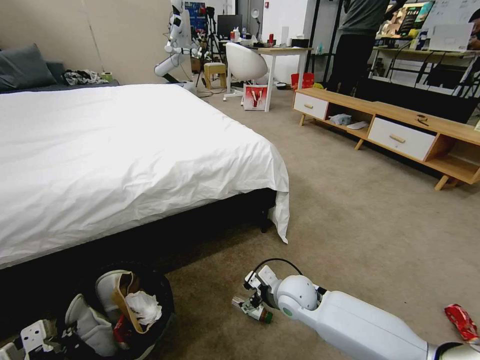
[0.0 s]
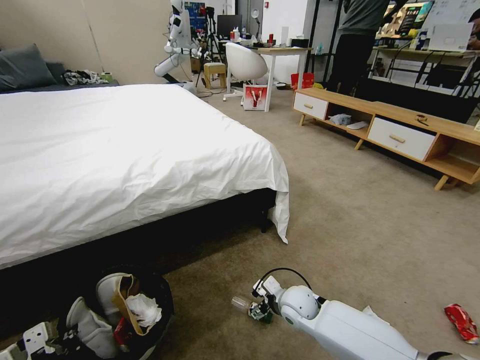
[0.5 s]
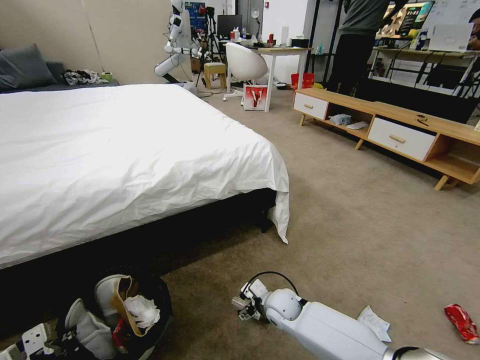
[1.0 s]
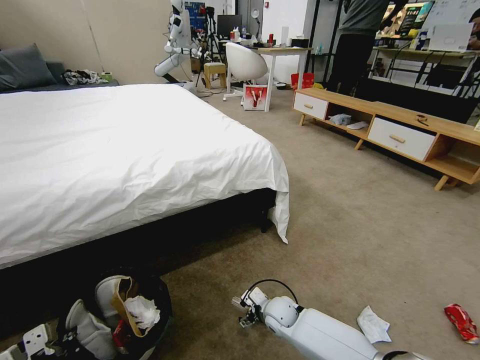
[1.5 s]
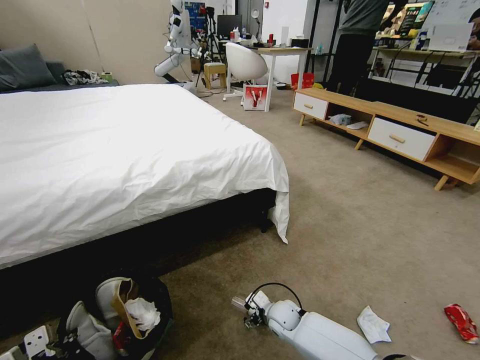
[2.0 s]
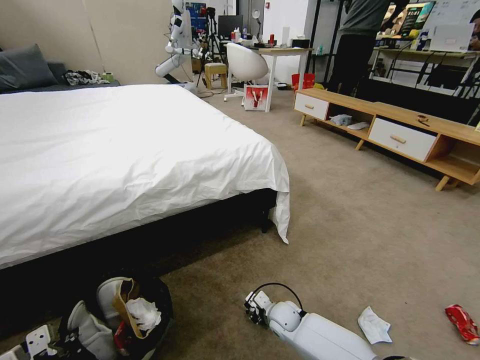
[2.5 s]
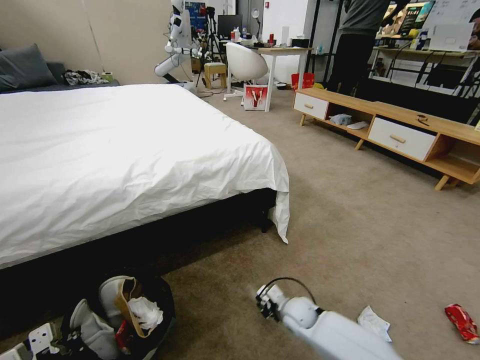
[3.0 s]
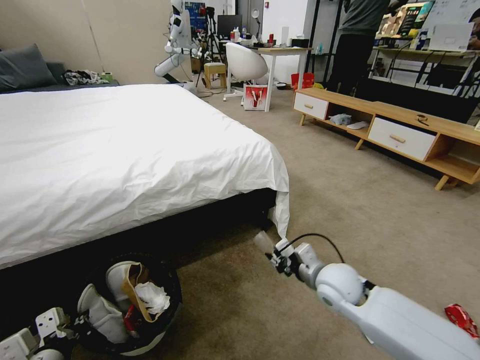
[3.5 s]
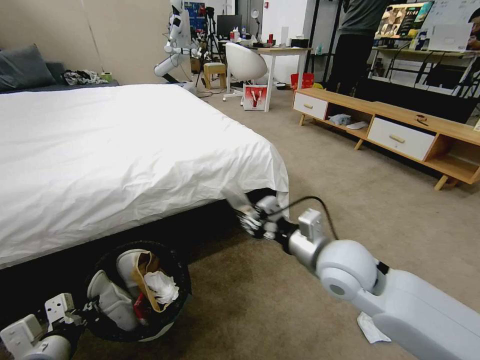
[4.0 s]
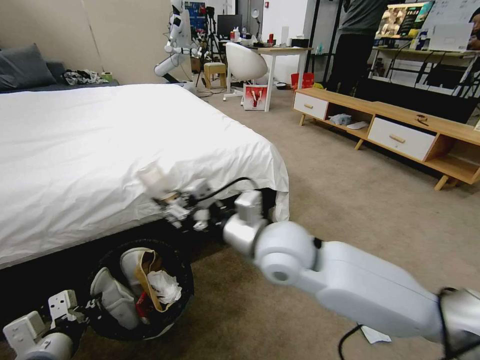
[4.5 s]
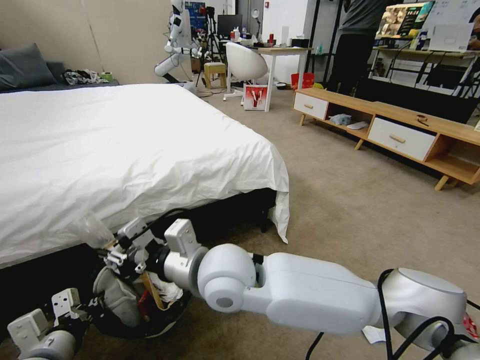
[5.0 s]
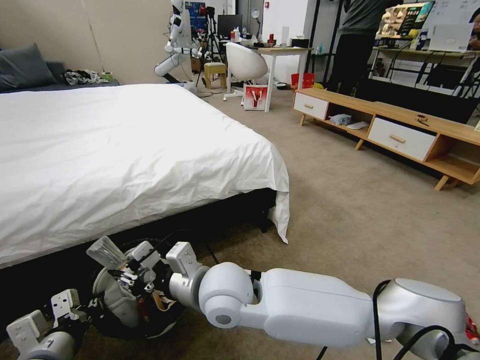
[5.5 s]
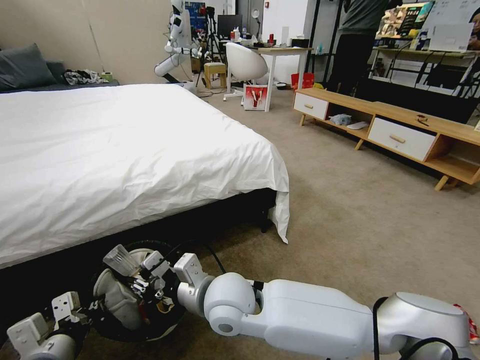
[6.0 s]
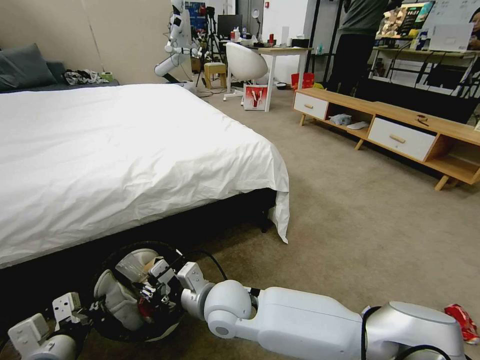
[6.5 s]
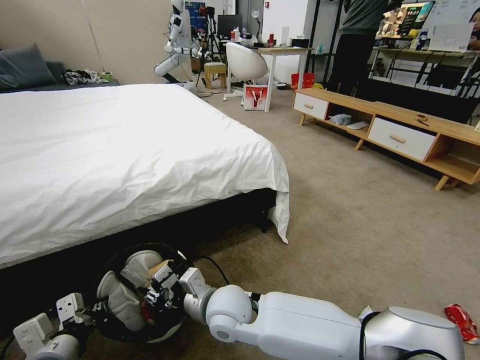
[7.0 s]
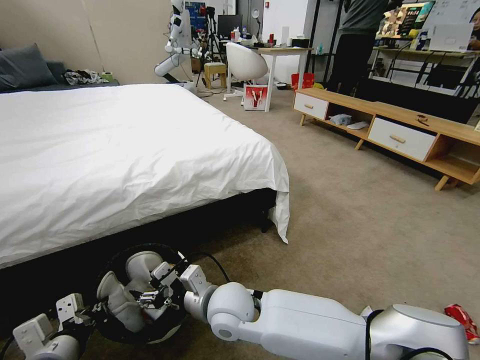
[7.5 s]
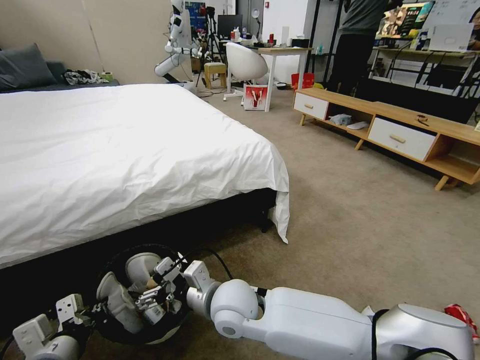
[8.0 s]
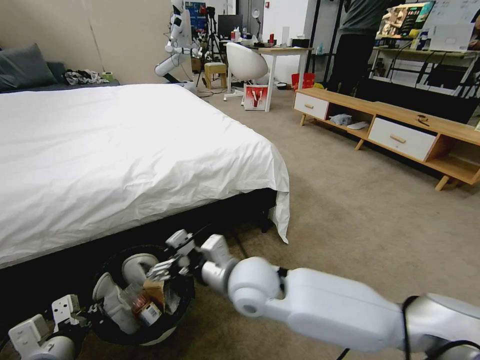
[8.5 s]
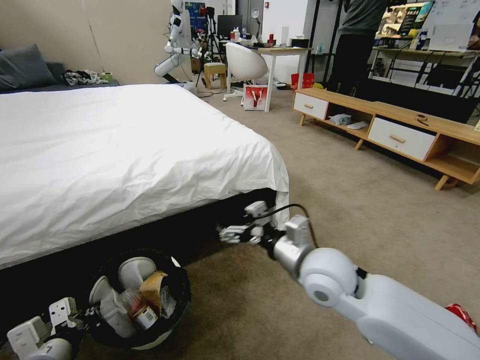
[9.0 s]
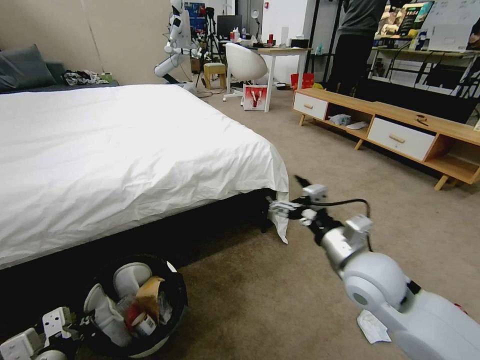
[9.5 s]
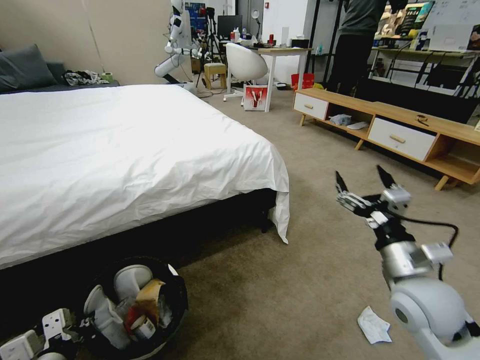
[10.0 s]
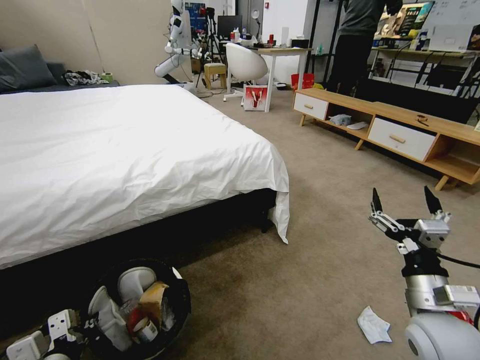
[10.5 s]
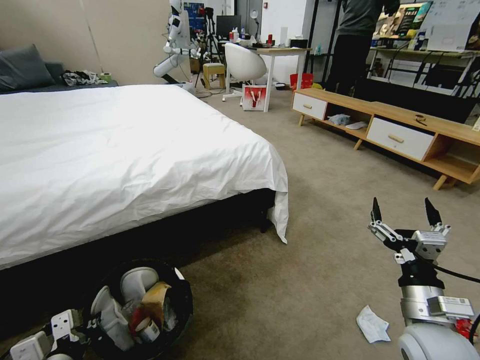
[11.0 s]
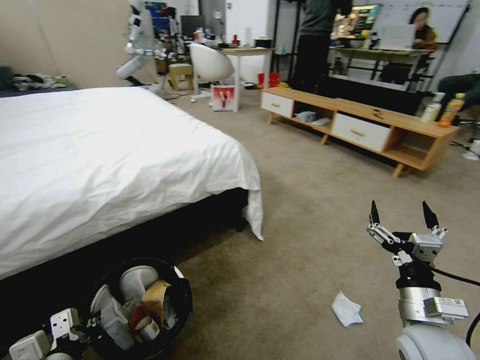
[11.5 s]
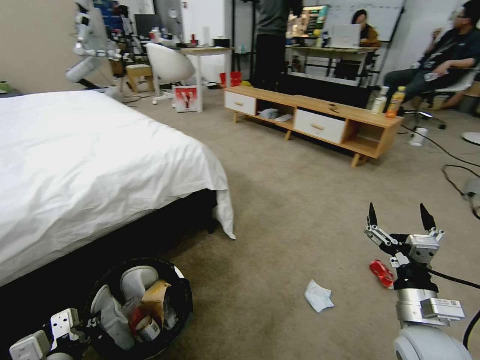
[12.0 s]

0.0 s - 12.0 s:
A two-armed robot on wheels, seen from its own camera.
Task of the whole recording: Pick up the trash bin and place the garbage on the floor into it.
0.0 s - 2.0 s: The right gripper heads downward, covering about 15 cm.
2.0 s - 4.0 s: The right gripper shifts approximately 35 cm upward, and closes, while the left gripper moves some 5 cm.
4.0 s - 6.0 s: The right gripper heads to the left, covering roughly 20 cm.
6.0 s - 8.0 s: The right gripper opens.
8.0 s - 10.0 s: The right gripper travels to the right by roughly 35 cm.
10.0 s - 12.0 s: The right gripper moves downward and backward, some 10 cm.

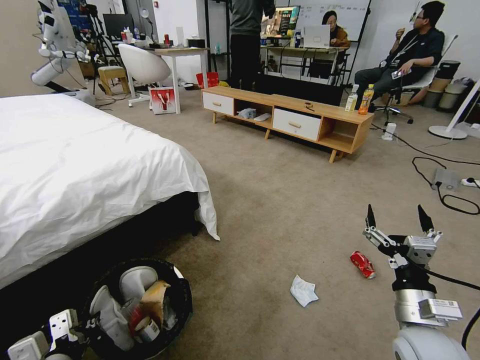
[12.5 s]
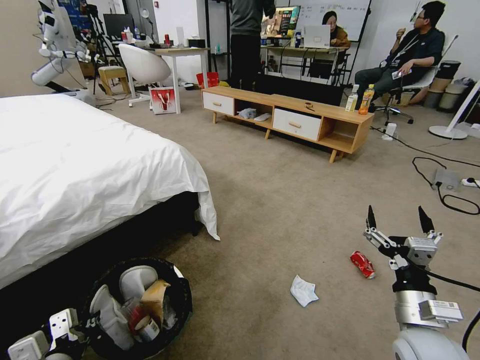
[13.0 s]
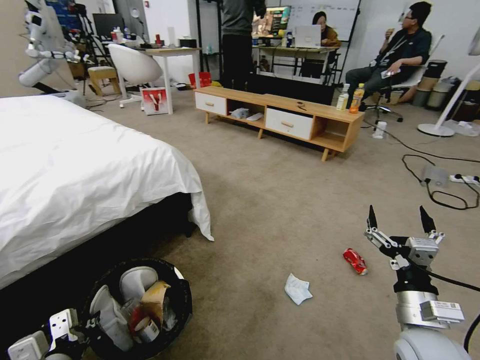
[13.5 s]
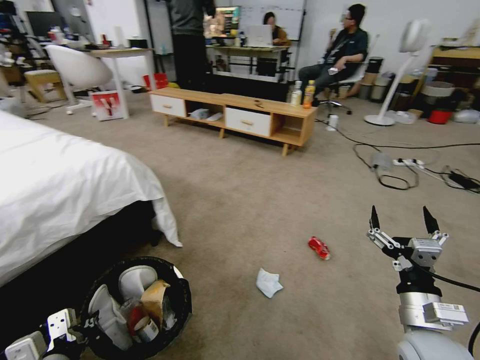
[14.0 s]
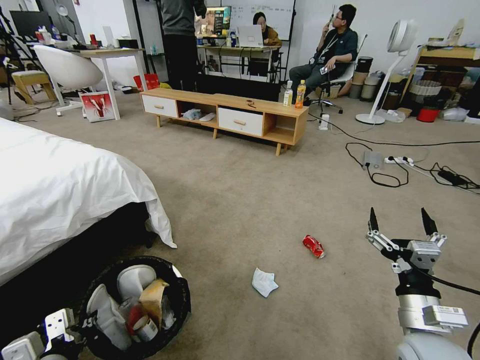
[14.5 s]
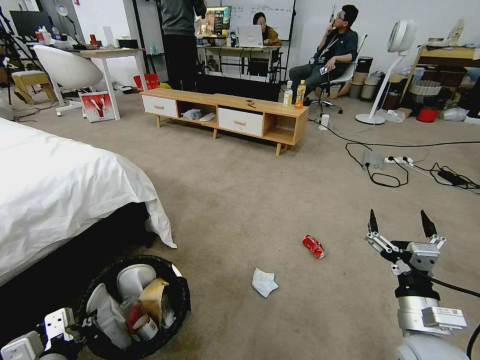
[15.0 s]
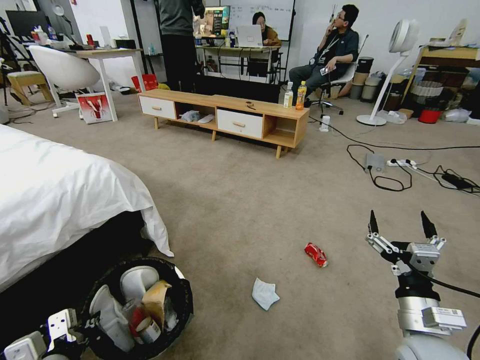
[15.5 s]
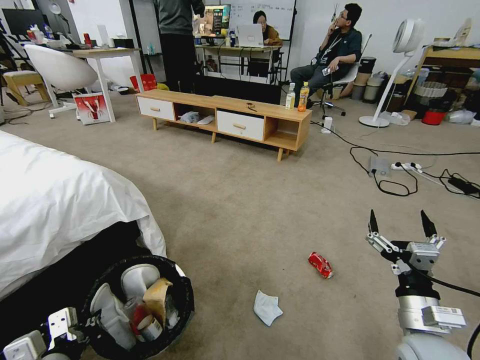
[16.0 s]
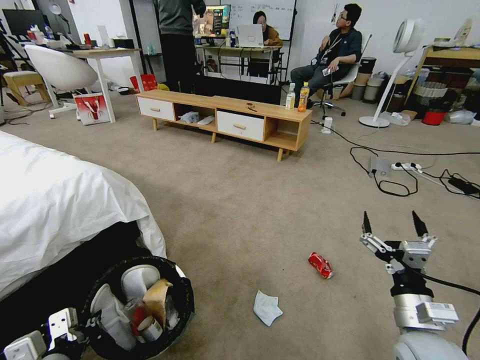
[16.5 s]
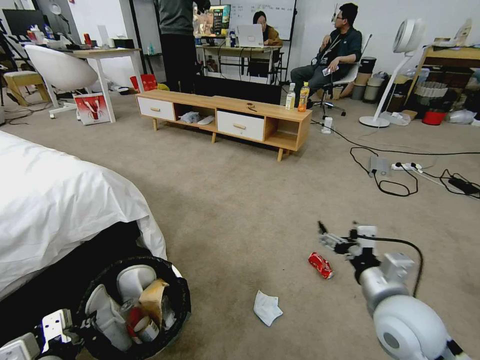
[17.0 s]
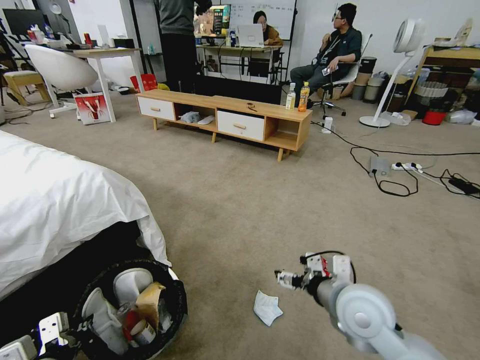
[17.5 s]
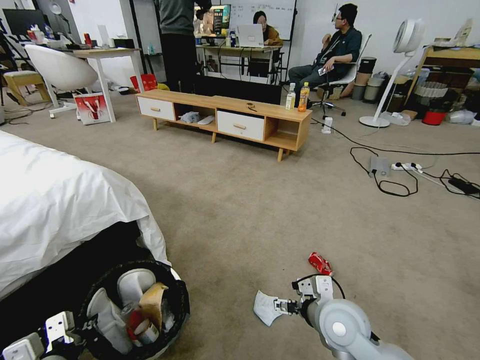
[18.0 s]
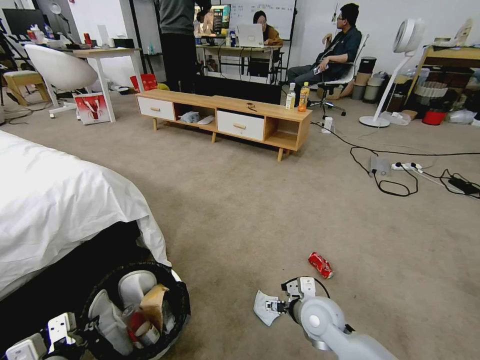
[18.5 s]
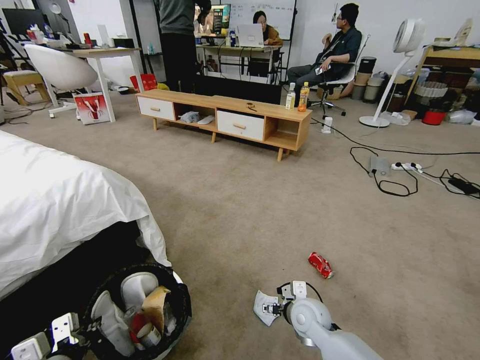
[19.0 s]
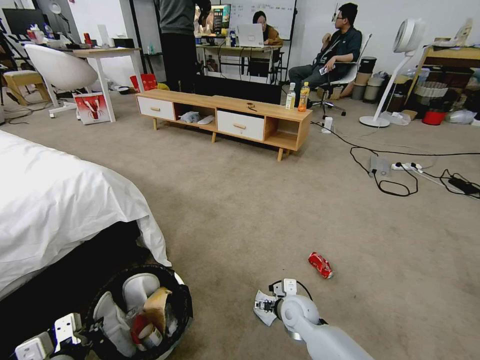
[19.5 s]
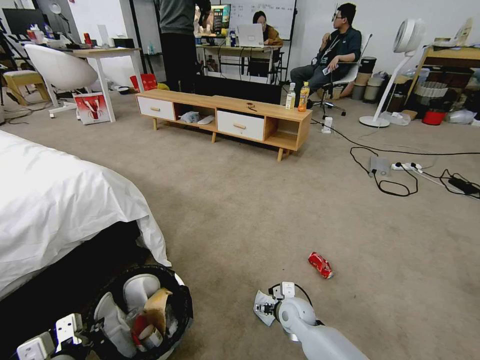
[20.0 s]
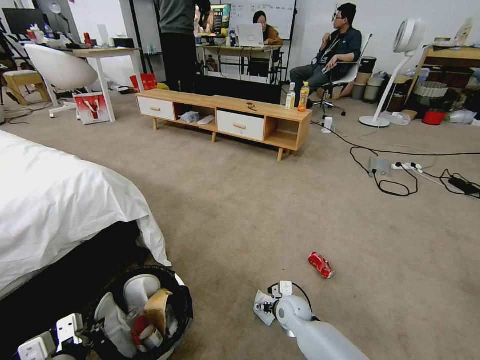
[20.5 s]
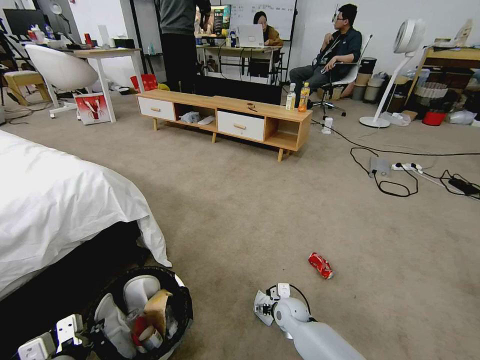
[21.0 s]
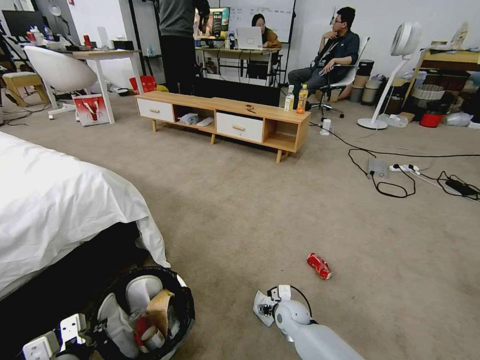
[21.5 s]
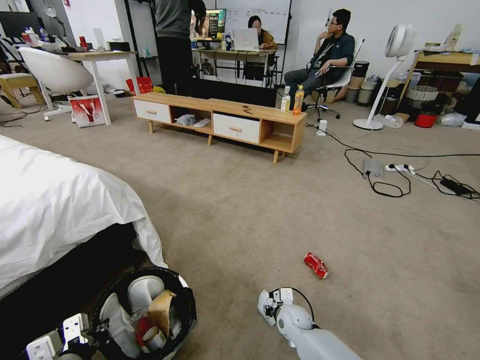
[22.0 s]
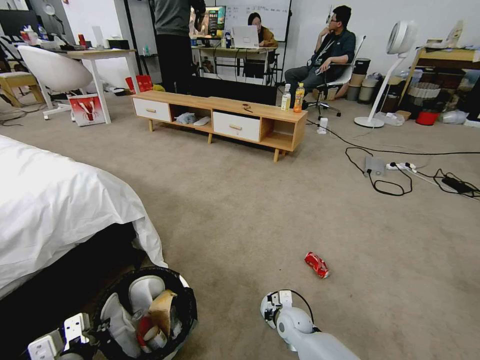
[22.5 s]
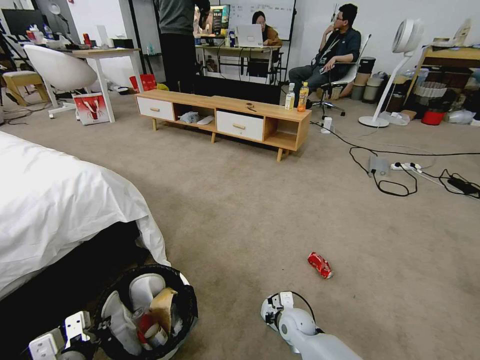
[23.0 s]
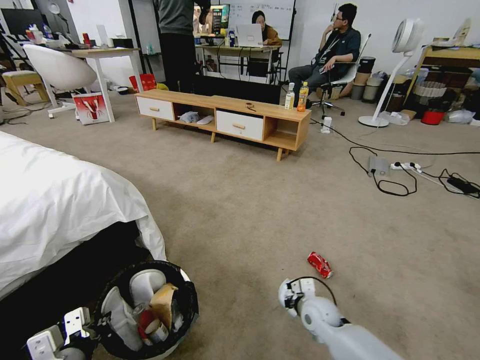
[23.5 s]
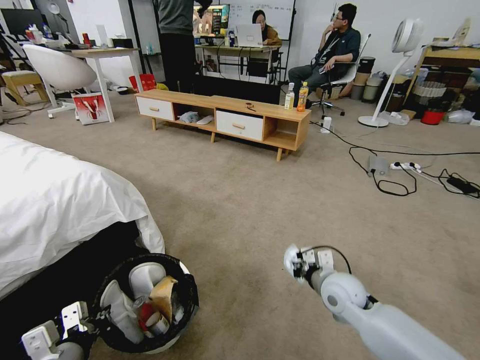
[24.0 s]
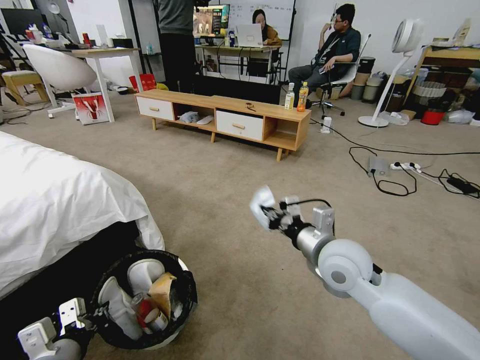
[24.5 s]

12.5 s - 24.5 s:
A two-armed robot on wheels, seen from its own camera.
Task of the whole recording: Pick up the trash bin and place the garbage on the floor into it.
16.5 s - 18.5 s: The right gripper travels to the left, forward and downward by about 20 cm.
18.5 s - 20.5 s: The right gripper heads downward and forward, covering approximately 15 cm.
20.5 s - 22.5 s: The right gripper closes up.
22.5 s - 24.5 s: The right gripper moves upward, roughly 30 cm.

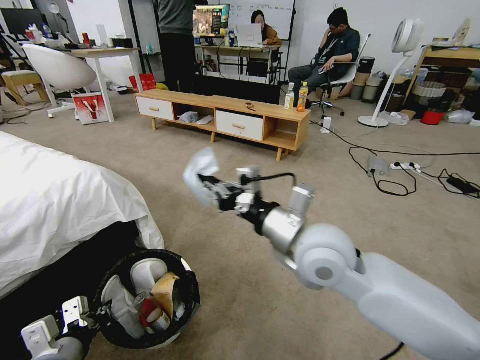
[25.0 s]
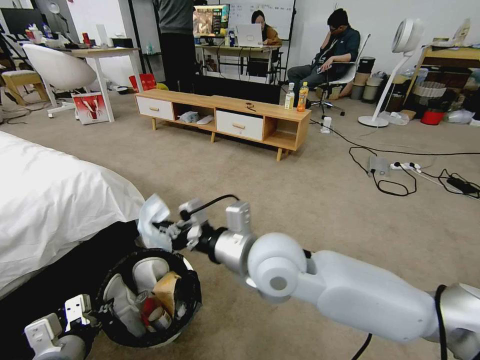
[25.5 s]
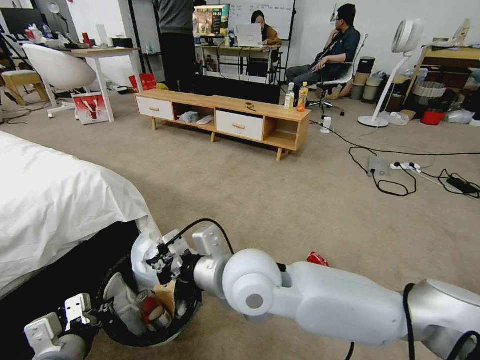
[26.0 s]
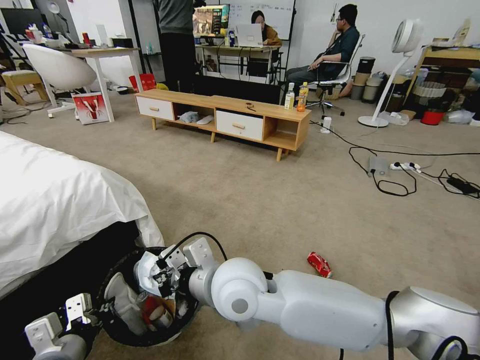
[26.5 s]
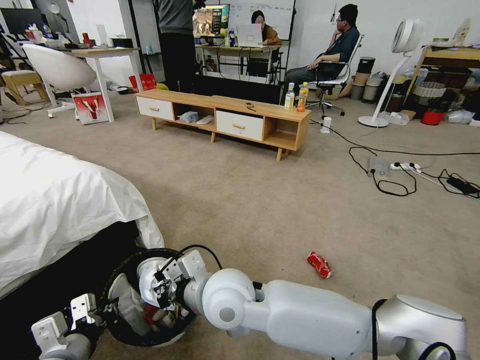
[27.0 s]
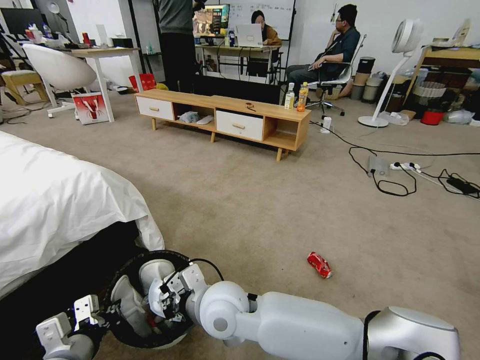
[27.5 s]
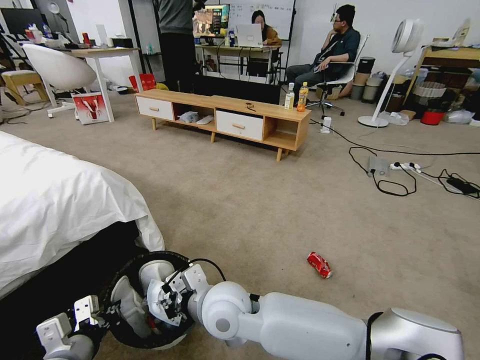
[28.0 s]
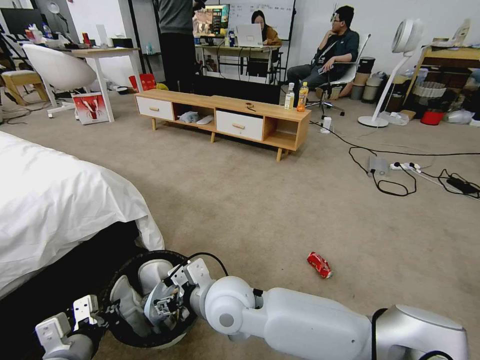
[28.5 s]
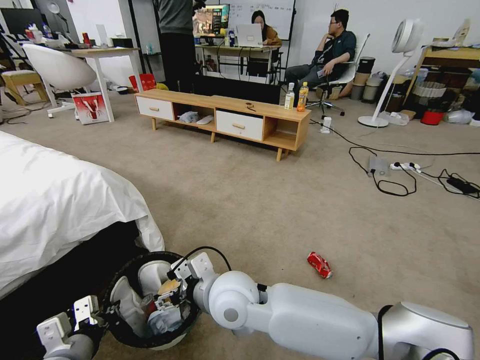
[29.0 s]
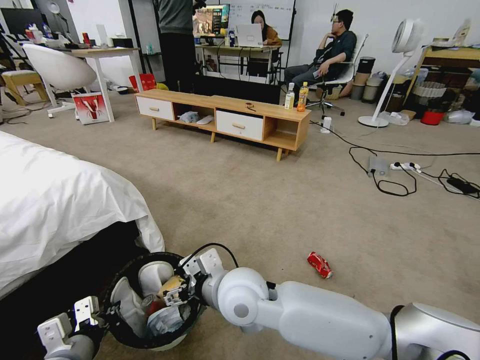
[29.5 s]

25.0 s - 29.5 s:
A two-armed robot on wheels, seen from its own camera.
Task of the whole recording: Pick up the trash bin and place the garbage on the floor into it.
25.0 s - 27.0 s: The right gripper goes approximately 20 cm to the left and downward.
27.0 s - 29.5 s: The right gripper opens up.
